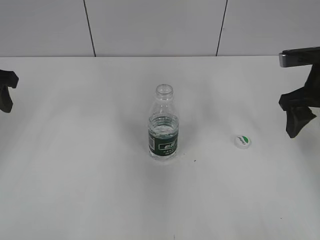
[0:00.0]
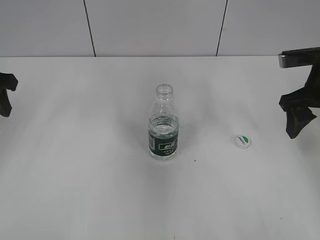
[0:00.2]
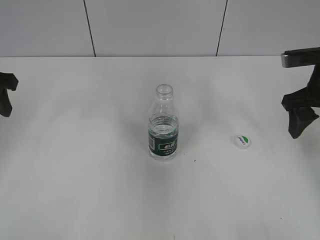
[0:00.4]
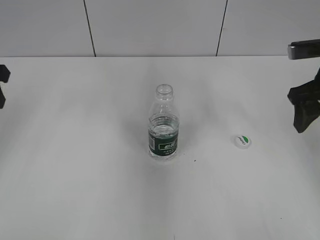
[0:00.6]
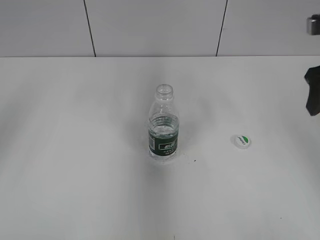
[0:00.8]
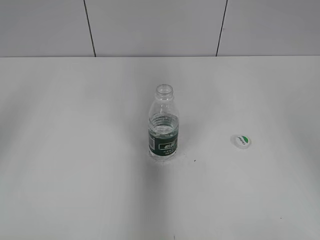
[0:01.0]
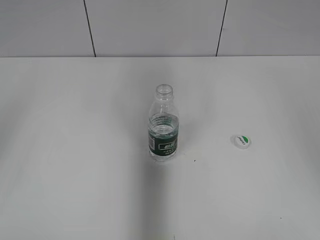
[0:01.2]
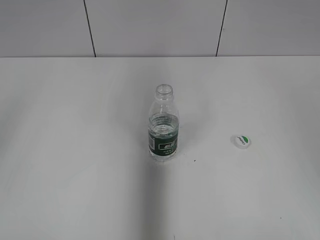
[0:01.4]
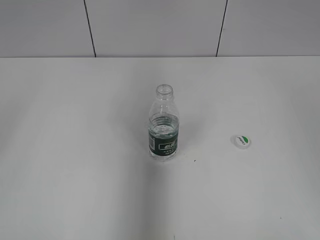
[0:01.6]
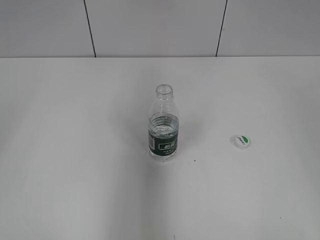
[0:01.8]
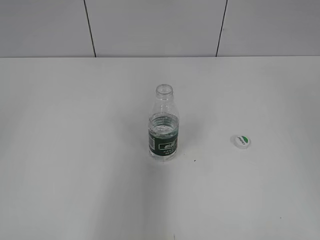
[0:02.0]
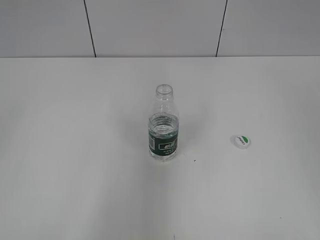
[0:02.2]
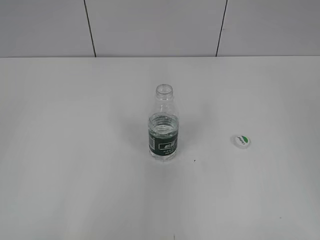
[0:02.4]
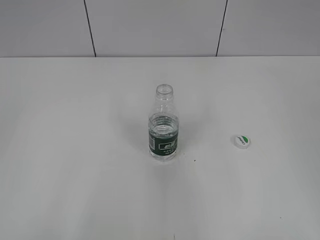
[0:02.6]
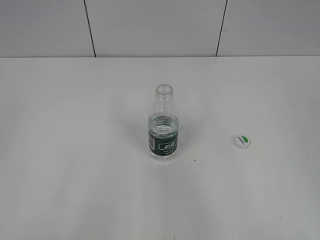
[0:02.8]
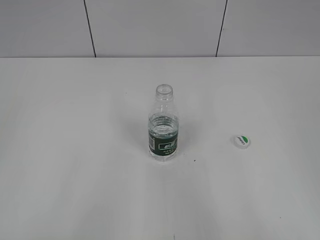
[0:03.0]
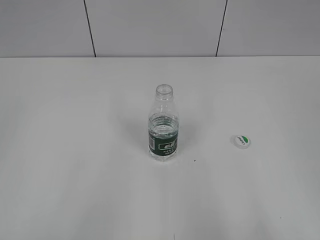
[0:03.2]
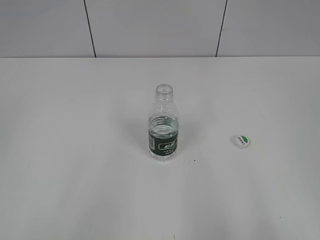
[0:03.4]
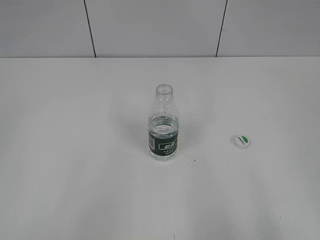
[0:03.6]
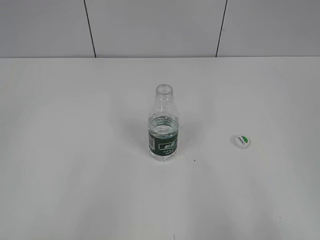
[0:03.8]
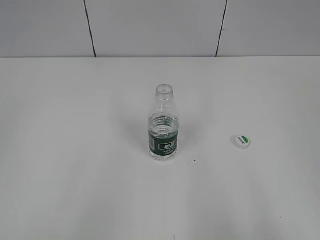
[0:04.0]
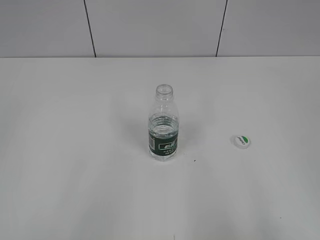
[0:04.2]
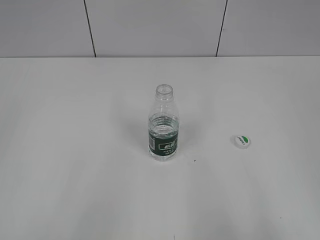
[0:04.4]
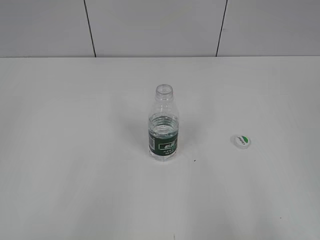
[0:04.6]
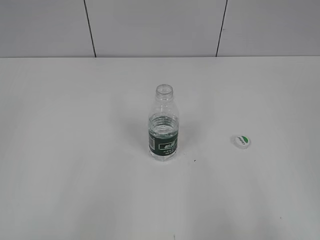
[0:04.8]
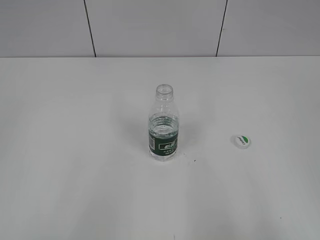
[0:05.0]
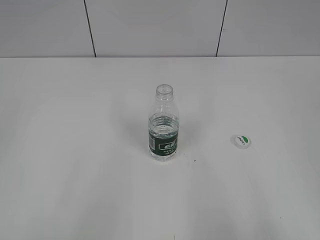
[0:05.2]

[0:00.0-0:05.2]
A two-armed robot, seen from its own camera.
0.0 to 1.8 s: The left gripper travels backward and upward by some 25 cm; the right gripper moves upward and backward, about 30 cm.
1.8 to 3.4 s: The left gripper goes approximately 10 cm downward and backward, and closes its fingers. Meanwhile the right gripper goes about 20 cm downward and backward.

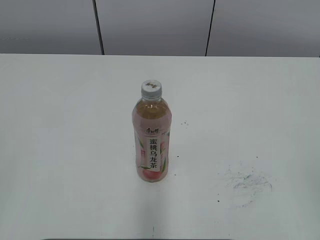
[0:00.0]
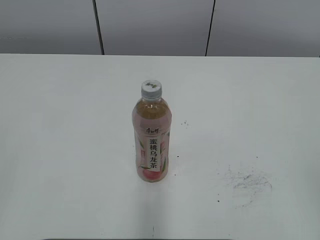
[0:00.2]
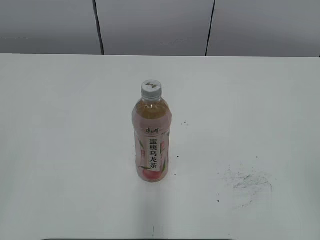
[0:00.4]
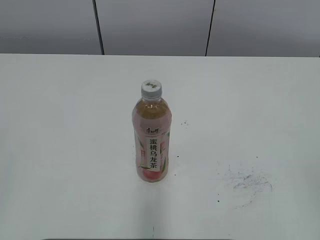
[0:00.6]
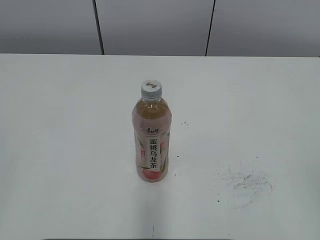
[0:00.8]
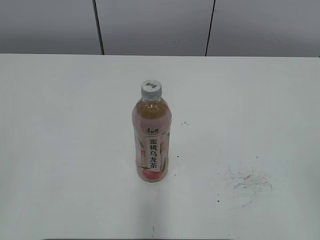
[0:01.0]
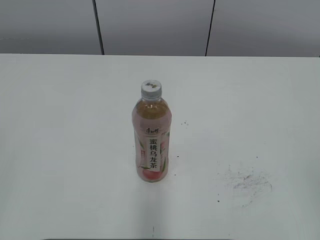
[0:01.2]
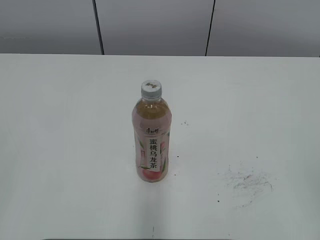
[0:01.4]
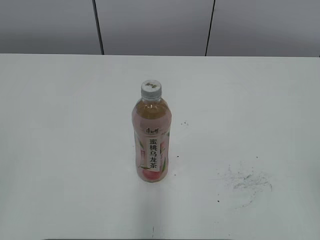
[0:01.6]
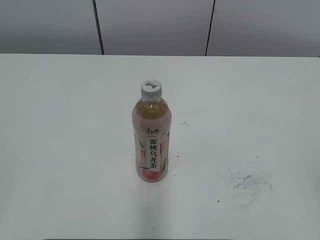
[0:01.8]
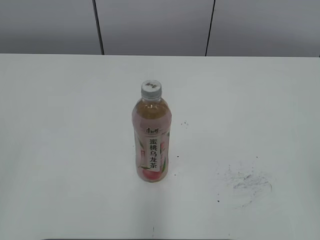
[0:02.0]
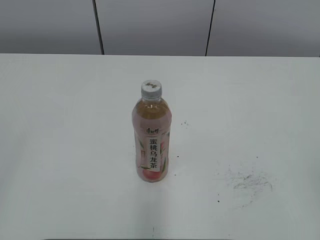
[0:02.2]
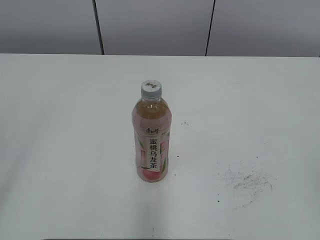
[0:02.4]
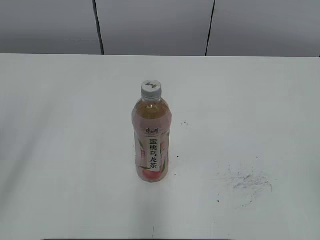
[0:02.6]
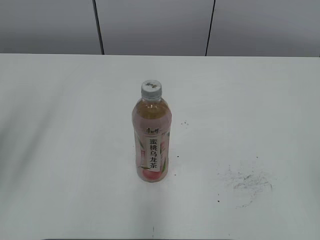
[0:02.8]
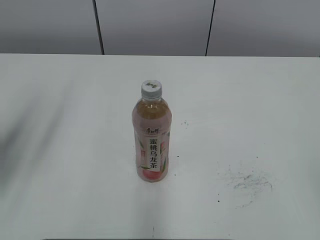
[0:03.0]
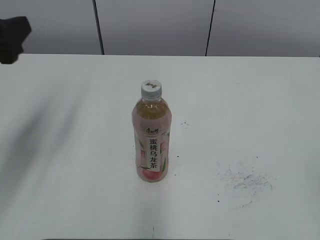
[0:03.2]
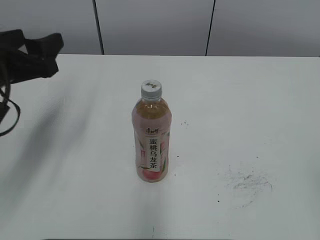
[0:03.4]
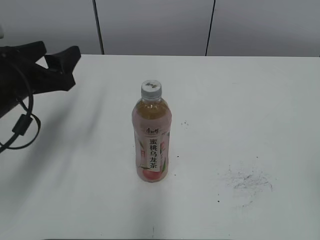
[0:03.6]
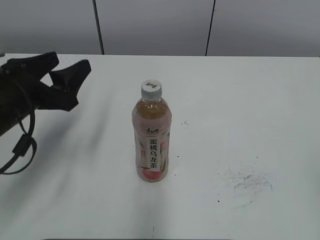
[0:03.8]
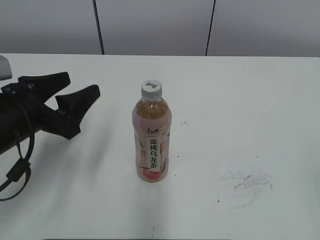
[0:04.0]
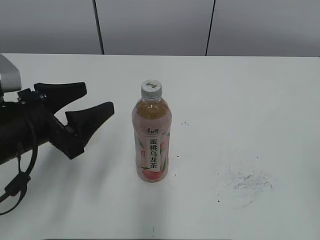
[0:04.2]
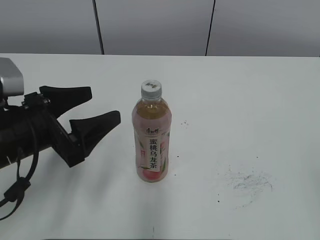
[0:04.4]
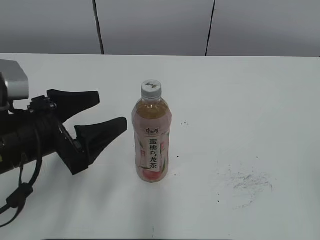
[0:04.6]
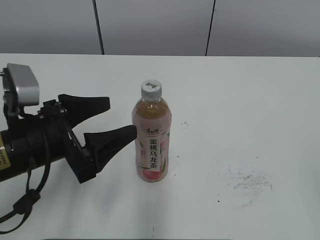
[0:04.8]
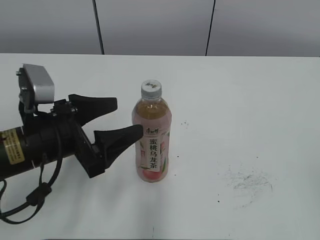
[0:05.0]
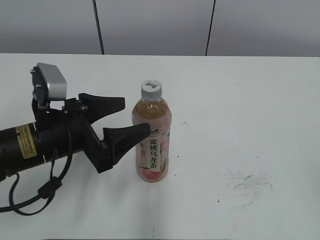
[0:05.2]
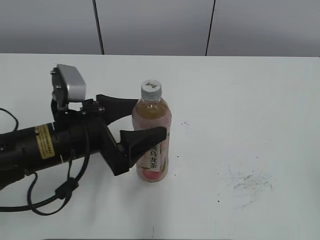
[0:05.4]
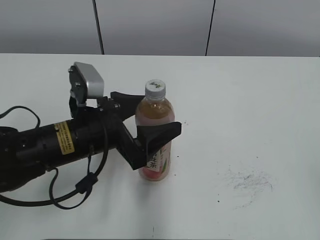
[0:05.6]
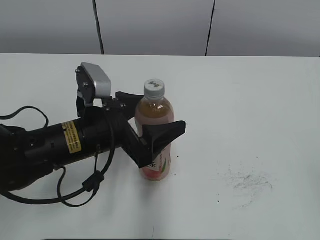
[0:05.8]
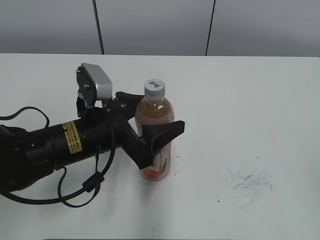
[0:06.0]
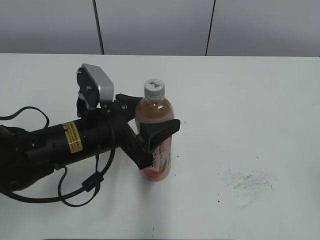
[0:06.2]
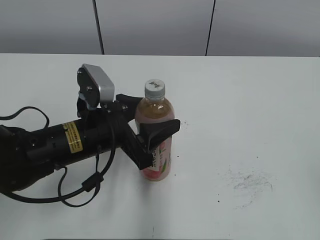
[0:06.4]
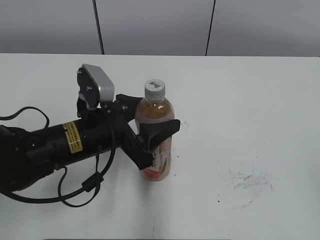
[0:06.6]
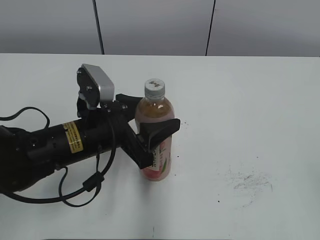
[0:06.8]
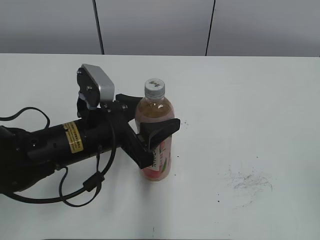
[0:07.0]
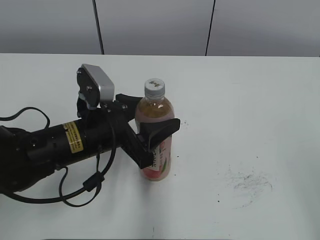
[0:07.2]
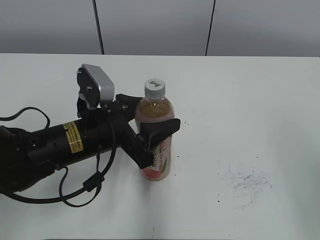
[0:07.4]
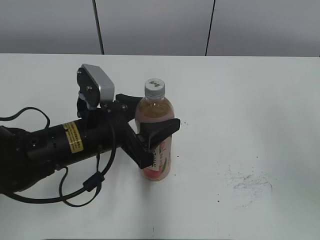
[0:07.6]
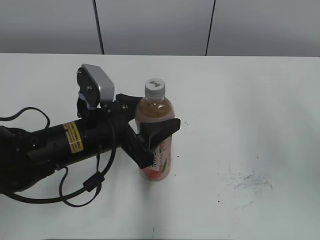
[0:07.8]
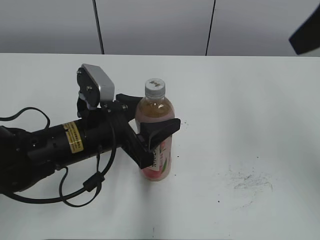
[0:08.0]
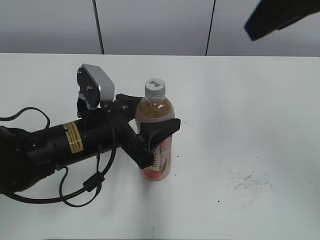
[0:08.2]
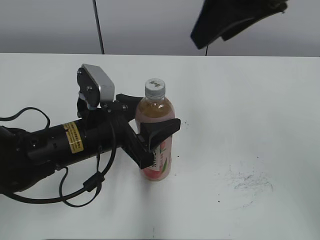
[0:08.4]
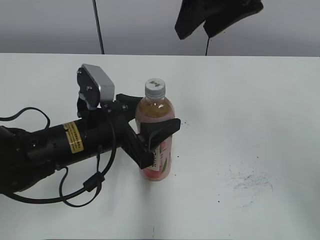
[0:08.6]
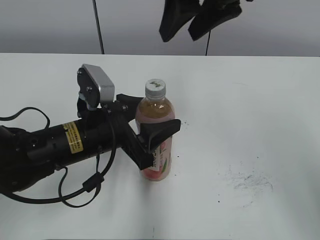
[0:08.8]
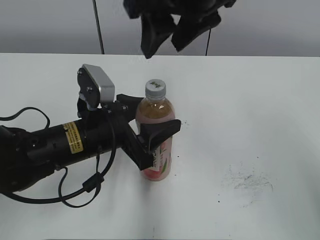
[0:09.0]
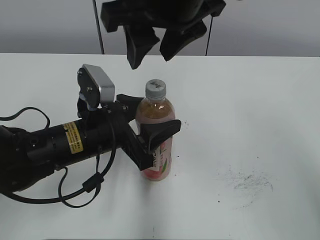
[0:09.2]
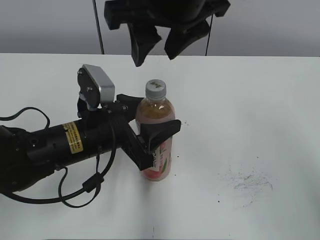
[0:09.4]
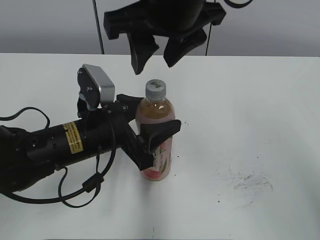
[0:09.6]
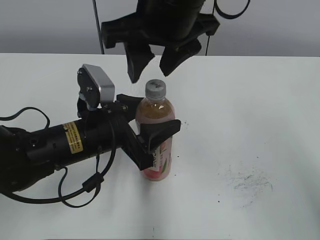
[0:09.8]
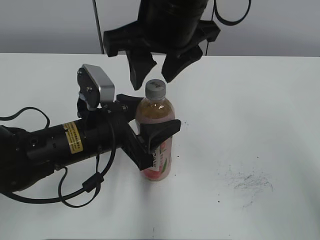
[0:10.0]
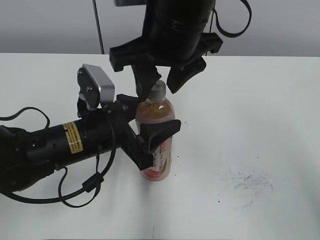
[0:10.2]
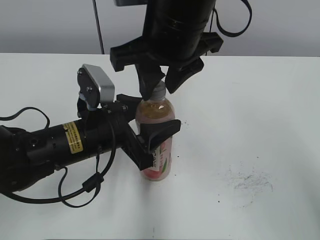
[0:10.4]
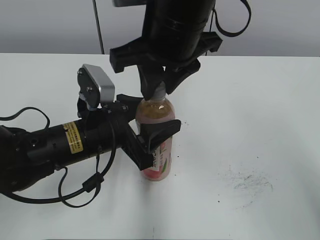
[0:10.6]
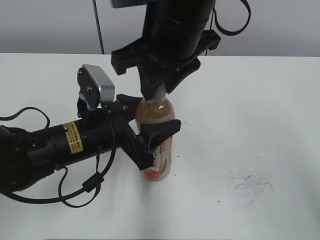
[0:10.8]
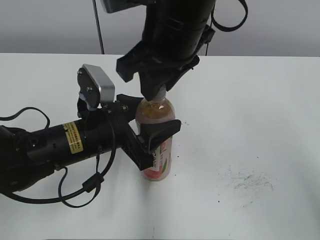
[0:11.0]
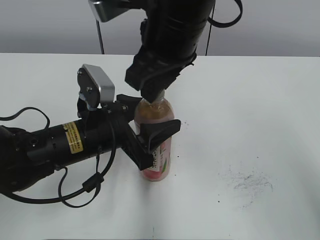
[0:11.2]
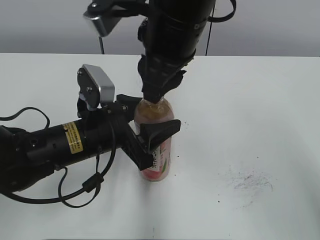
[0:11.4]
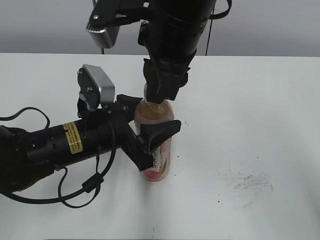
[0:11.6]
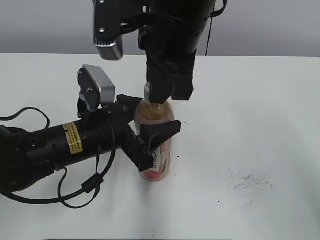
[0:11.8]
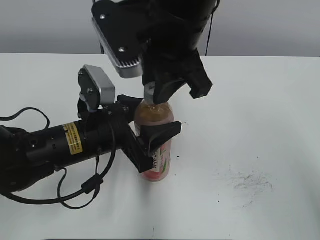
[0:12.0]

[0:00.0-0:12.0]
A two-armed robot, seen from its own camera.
Step, 0.0 to 6.6 s: Grab the Peach Oolong Tea with the left hand.
1.6 to 3.0 s: The left gripper shifts some 20 cm forward.
3.0 to 4.4 s: The left gripper travels downward and to the right by approximately 15 cm, and opens.
4.4 to 6.0 s: The left gripper shifts roughly 10 cm to the right.
6.0 to 7.6 s: The right gripper shifts approximately 15 cm forward and upward. The left gripper closes up.
7.6 to 9.0 s: The right gripper travels to the left and forward by approximately 30 cm.
9.0 to 10.4 s: The right gripper is displaced downward by roughly 5 cm.
10.4 to 12.0 s: The right gripper closes.

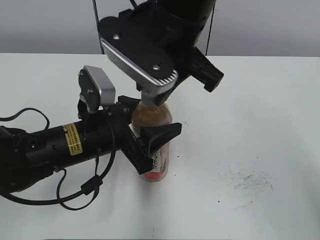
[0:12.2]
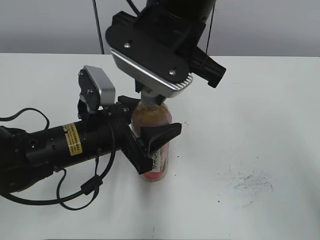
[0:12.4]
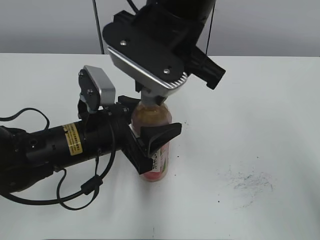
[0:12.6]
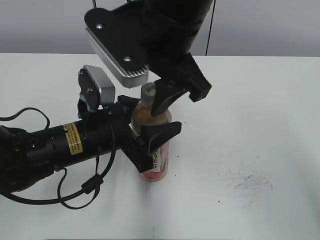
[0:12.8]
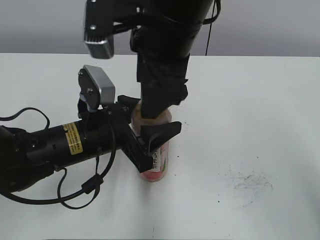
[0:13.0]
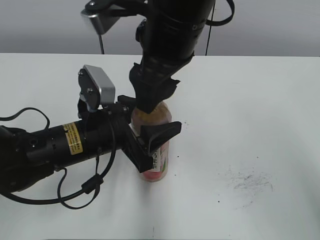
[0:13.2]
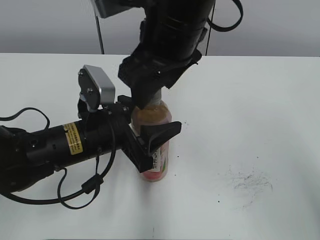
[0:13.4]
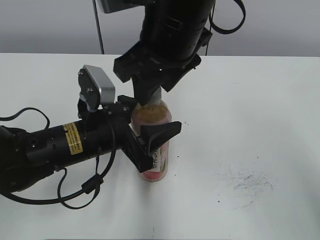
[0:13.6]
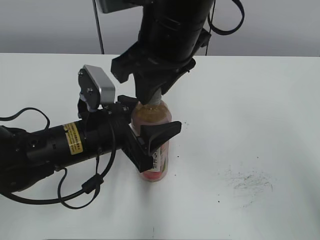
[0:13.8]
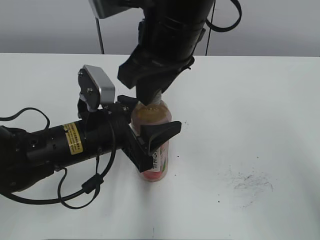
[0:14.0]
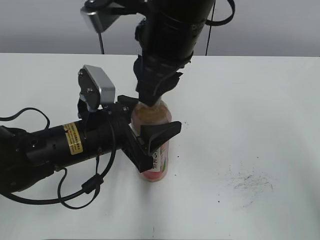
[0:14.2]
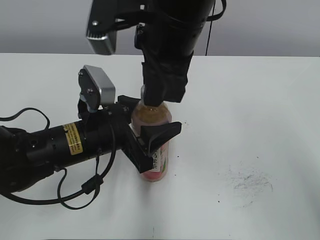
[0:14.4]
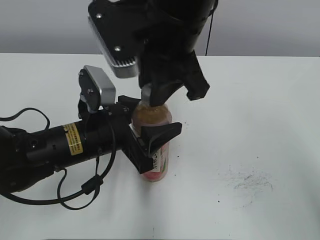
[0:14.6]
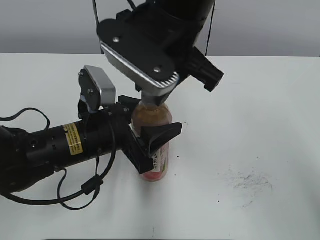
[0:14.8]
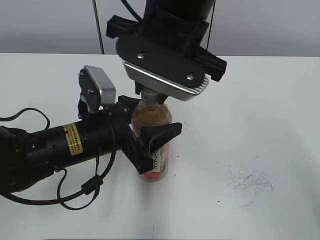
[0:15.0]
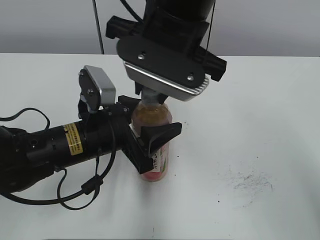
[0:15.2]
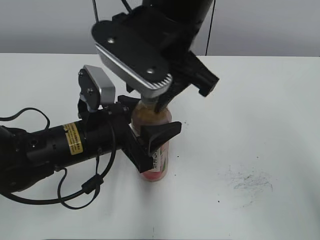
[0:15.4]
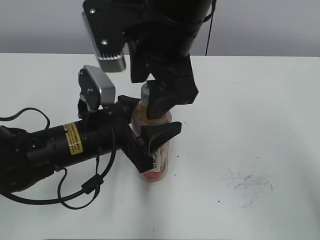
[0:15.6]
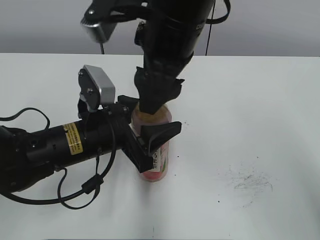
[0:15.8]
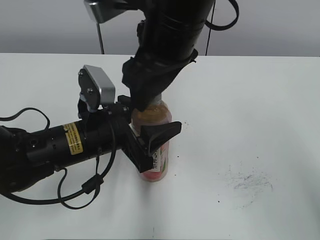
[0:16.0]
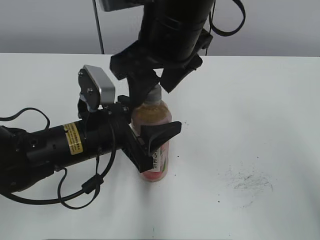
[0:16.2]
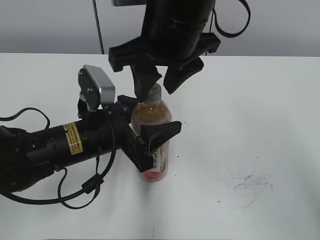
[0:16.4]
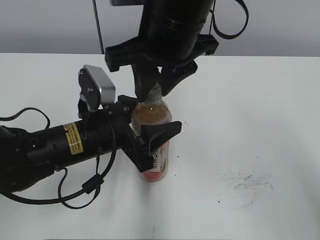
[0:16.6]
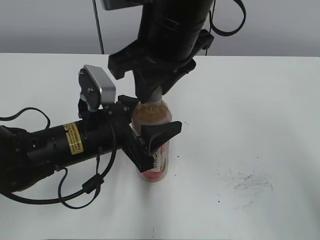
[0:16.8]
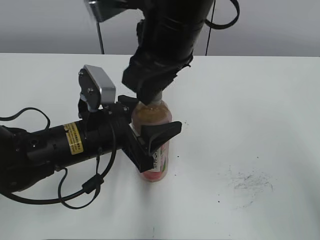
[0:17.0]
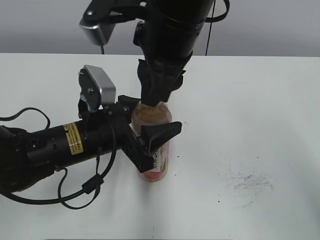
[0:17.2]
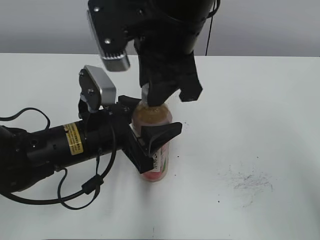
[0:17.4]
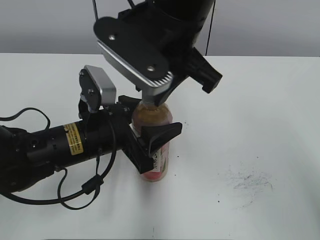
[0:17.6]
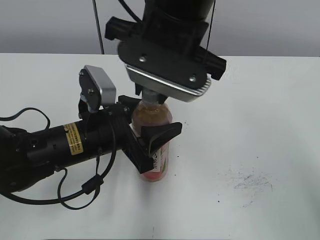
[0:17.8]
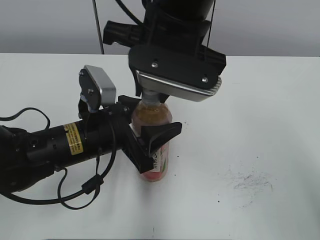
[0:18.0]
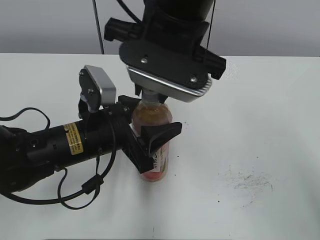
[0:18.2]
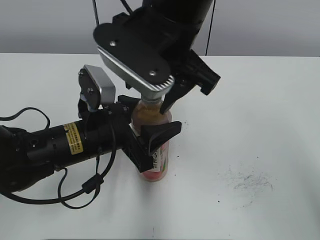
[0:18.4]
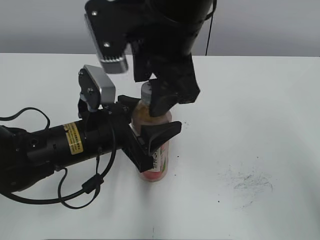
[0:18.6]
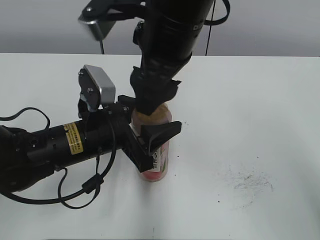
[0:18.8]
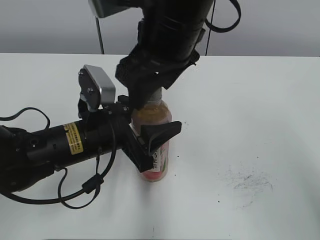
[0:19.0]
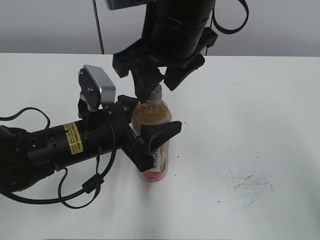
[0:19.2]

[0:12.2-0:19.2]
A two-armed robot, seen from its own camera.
12.2 to 13.6 s: The right gripper opens up.
13.6 to 15.0 s: The right gripper closes up.
15.0 to 16.4 s: The right gripper opens.
16.4 to 17.8 s: The right gripper closes its fingers.
17.8 to 19.2 s: The right gripper opens up.
